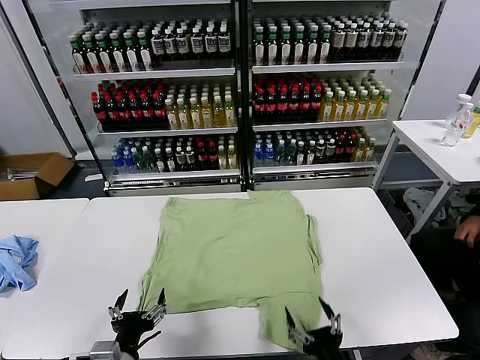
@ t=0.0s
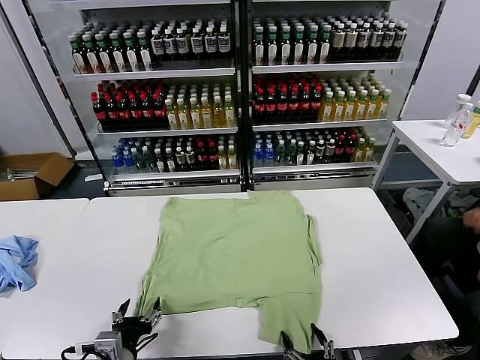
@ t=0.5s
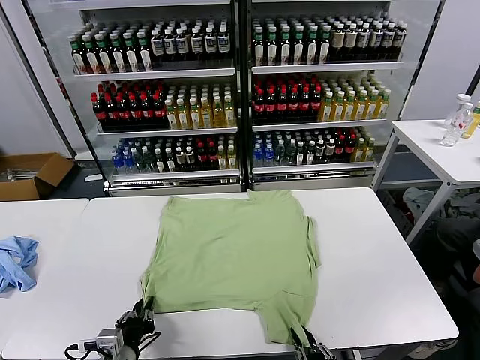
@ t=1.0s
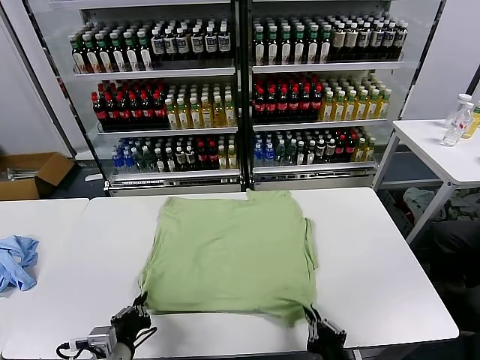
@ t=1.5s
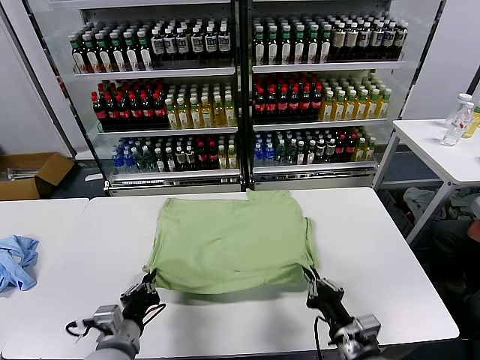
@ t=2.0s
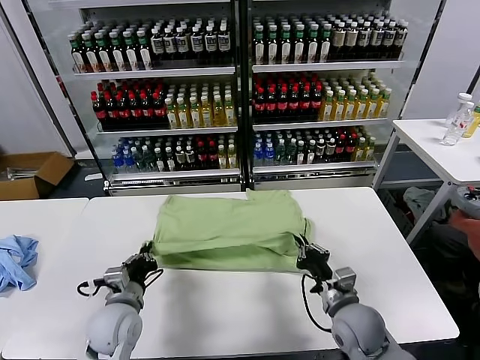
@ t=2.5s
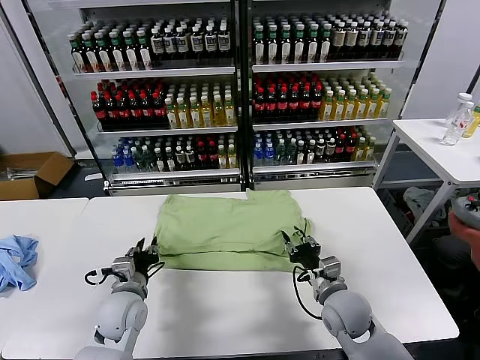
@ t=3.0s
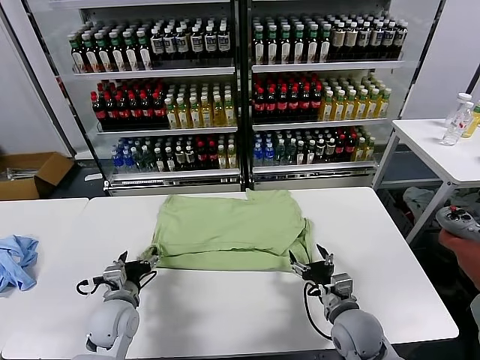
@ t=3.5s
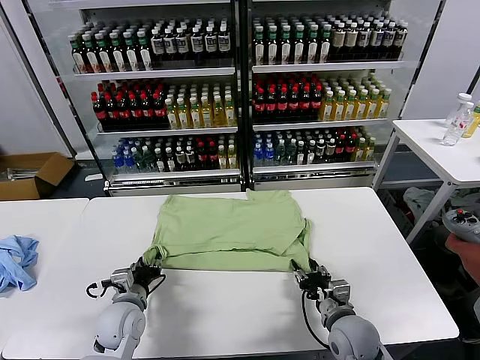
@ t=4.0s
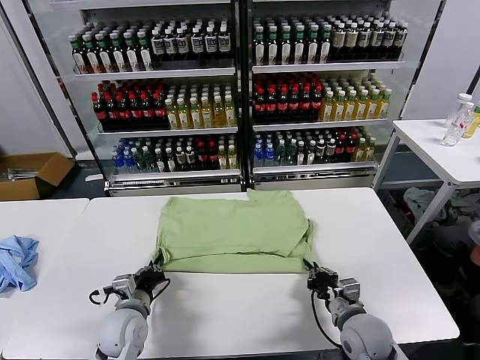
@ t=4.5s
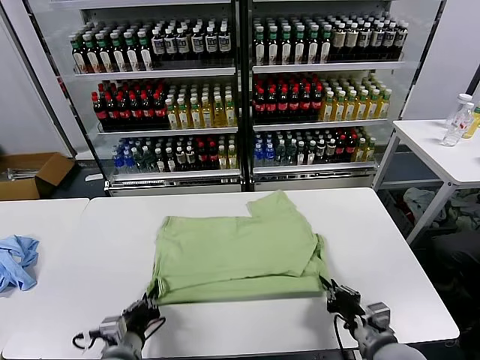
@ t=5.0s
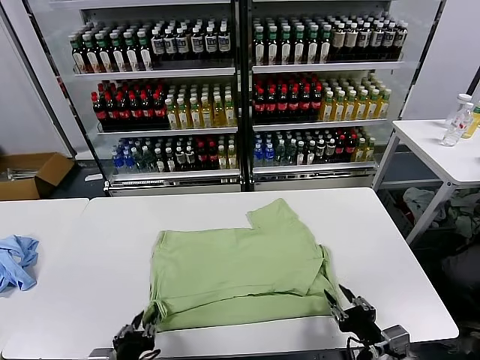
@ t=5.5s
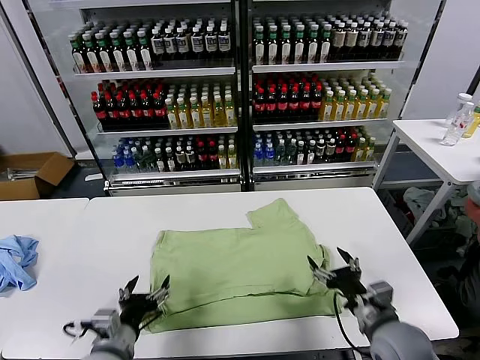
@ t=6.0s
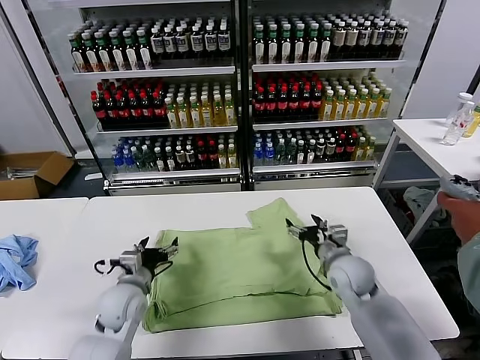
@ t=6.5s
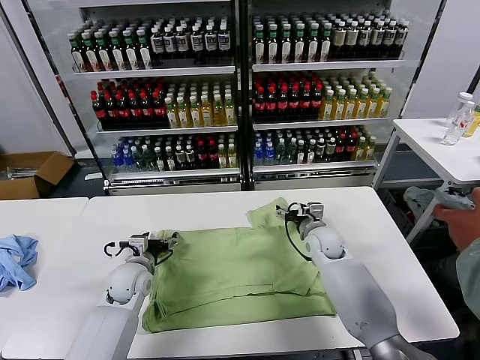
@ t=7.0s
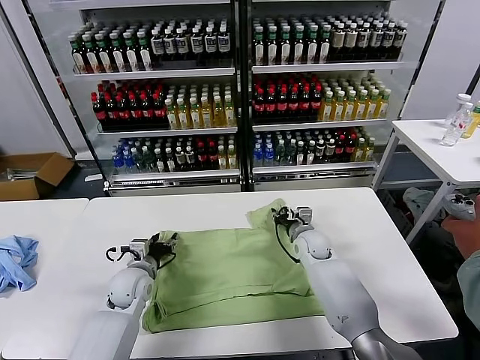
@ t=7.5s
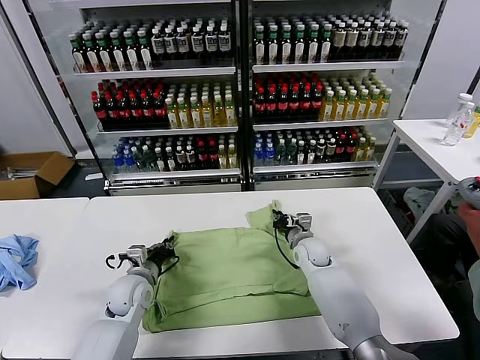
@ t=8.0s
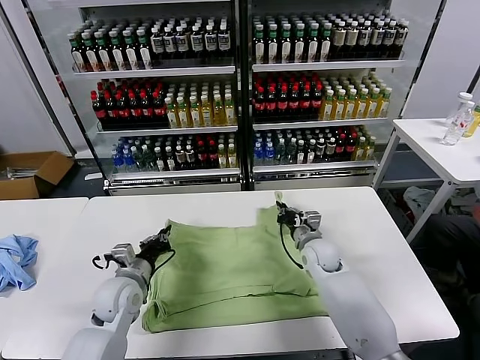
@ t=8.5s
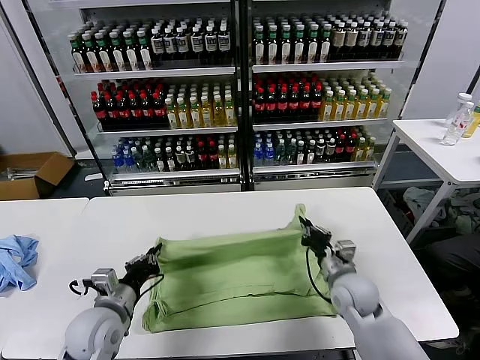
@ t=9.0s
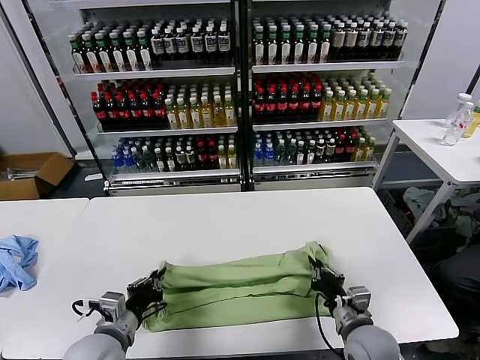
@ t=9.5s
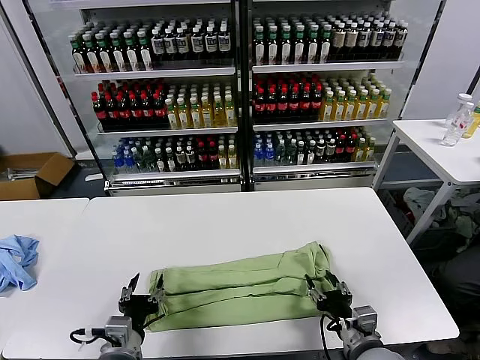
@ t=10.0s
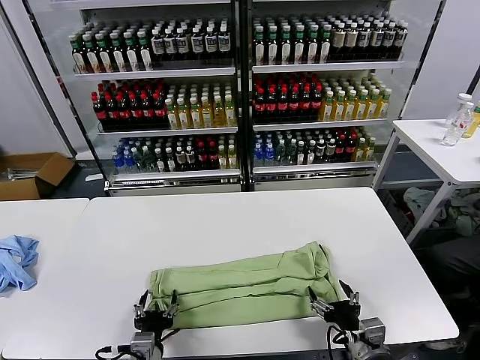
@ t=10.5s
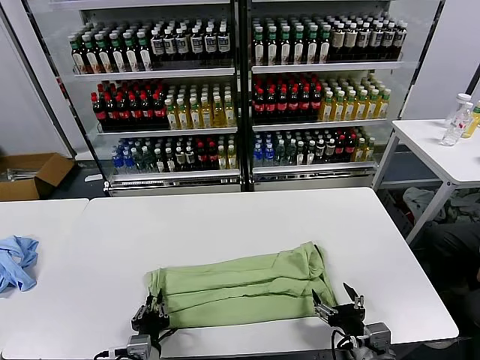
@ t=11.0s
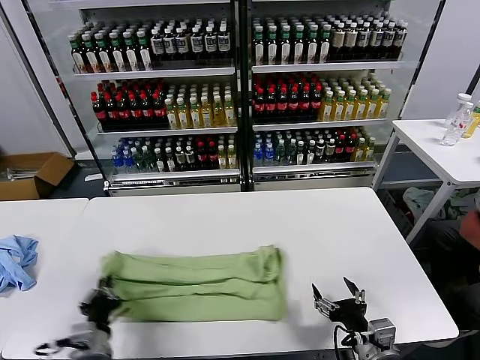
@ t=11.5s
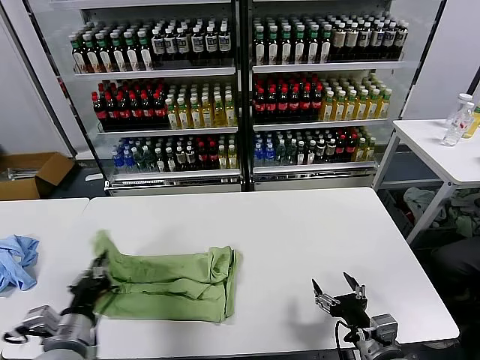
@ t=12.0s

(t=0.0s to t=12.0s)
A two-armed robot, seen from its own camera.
Task of the whole recording: fold and organize the clothes.
Step, t=0.0s - t=1.0s: use both grippers simultaneously to clamp the lower edge of the clothing fabric.
Step, t=1.5s - t=3.0s: use both grippers to drag the lower edge of the fabric forward and fold it over the upper edge.
Step, t=3.5s - t=5.5s: Drag the clothes downward with both gripper.
Step, t=6.0s - t=8.0s: use both grippers simultaneously to clamp the upper edge of the clothing fabric.
Step, t=8.5s - t=9.5s: use both grippers to drag the upper edge of the fabric backward and fold it over the lower edge.
Step, t=10.0s - t=10.5s: use the left gripper to clamp the left edge of the fabric.
t=2.0s - t=4.0s: The left gripper is displaced forward and downward by roughly 10 cm, and opens up; the right gripper travels forward by about 5 cm, and opens.
t=4.0s - t=6.0s: The right gripper travels upward by roughly 5 cm, reaches roughly 10 cm backward, then returns, and opens its fingers, while the left gripper shifts approximately 10 cm backward and upward, and opens up.
t=6.0s - t=8.0s: The two grippers go approximately 20 cm forward. The right gripper closes. Meanwhile the left gripper closes up.
t=8.0s - t=10.0s: The left gripper travels backward by roughly 20 cm, and opens. Meanwhile the right gripper is displaced backward by about 30 cm, and opens its fingers.
t=10.0s - t=12.0s: The left gripper travels to the left by roughly 10 cm, and closes.

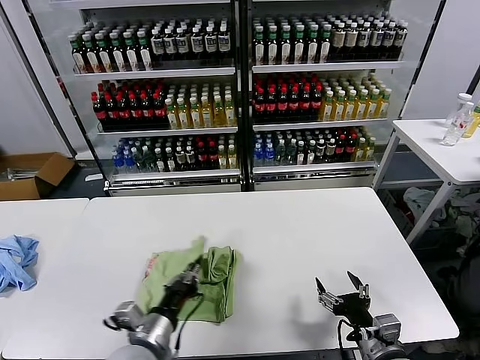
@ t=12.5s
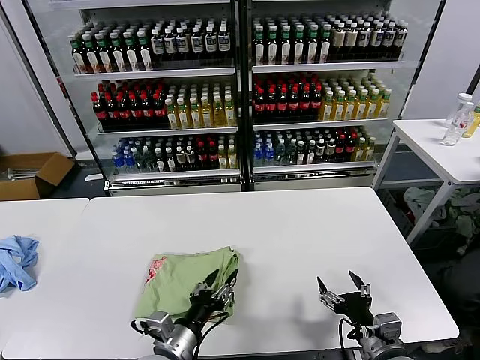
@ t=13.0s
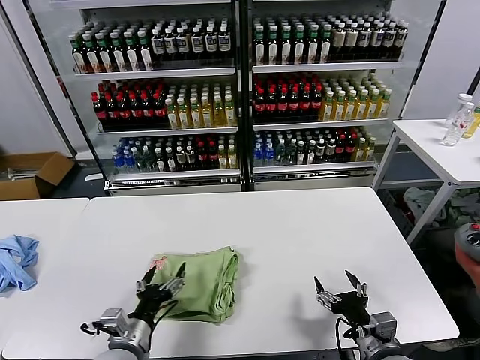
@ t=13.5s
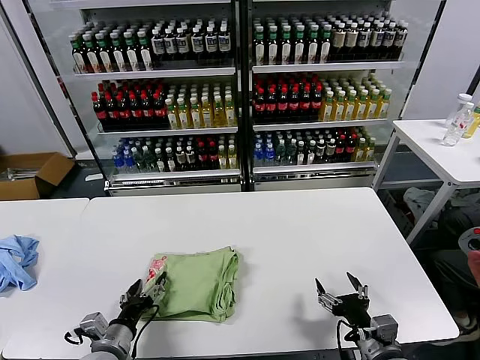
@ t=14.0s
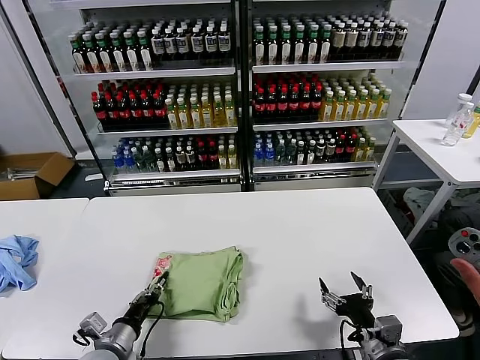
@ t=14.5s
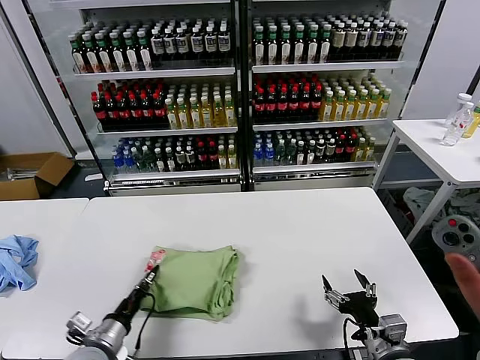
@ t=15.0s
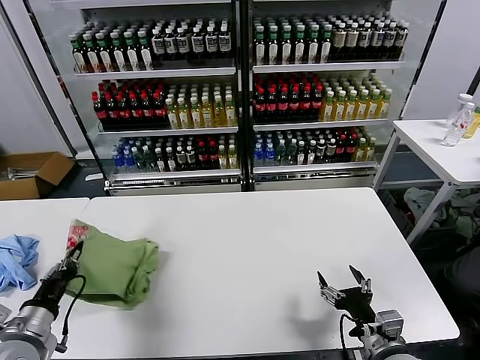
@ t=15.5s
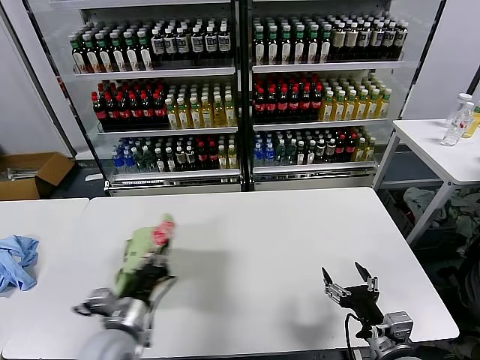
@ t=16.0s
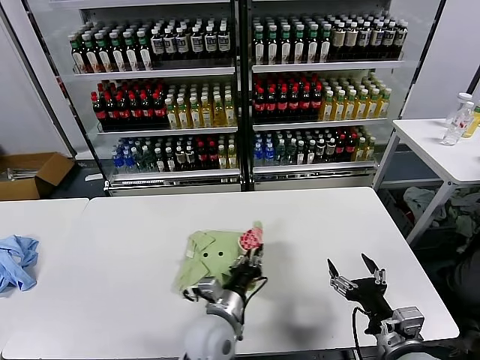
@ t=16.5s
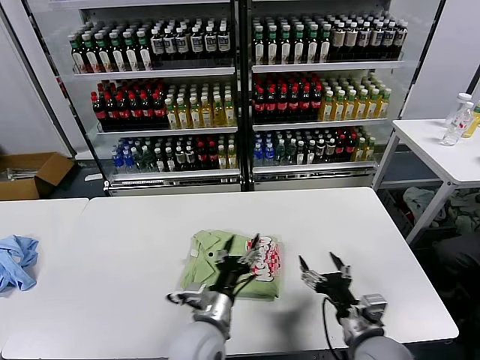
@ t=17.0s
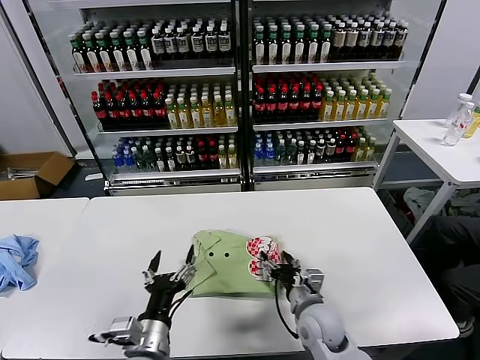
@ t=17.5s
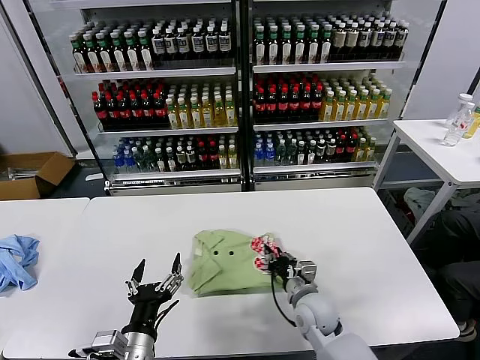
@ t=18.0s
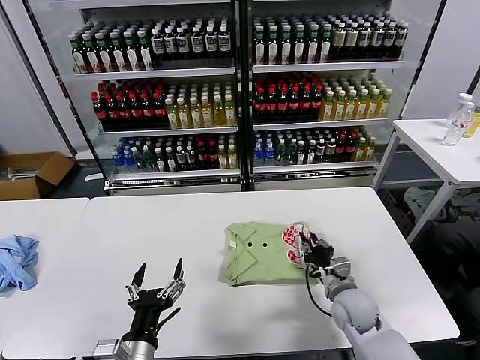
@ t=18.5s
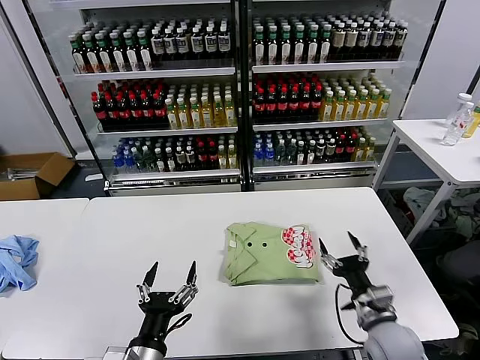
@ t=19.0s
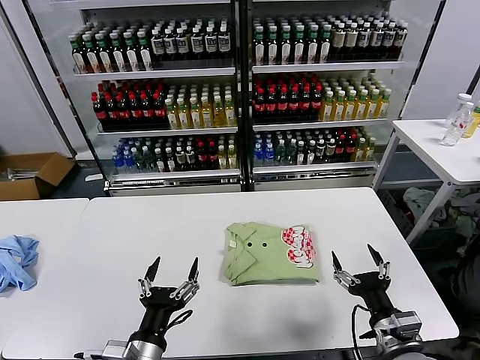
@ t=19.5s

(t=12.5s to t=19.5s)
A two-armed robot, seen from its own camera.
Task of the whole recording: fold and organize the clothes.
Step, t=13.5s - t=16.5s: Flip the folded clothes over with left gripper.
Step, t=17.0s - t=18.5s: Drag the clothes to the center of the table.
t=12.5s - t=14.5s: The left gripper heads to the left and downward, covering approximately 10 cm, and opens up.
t=14.5s - t=16.0s: The left gripper heads upward, covering approximately 10 cm, goes to the left and returns, some 10 cm each way, and closes its fingers.
t=16.0s - t=17.5s: The right gripper is displaced forward, to the left and downward by some 20 cm. The left gripper heads to the right, covering some 10 cm, and opens.
t=17.5s - t=19.5s: The right gripper travels to the right, backward and upward by roughly 20 cm, and closes, then reopens. The left gripper moves backward, roughly 5 cm.
